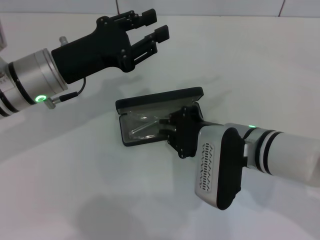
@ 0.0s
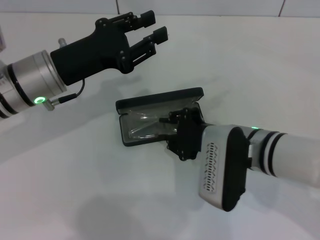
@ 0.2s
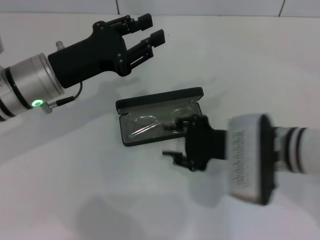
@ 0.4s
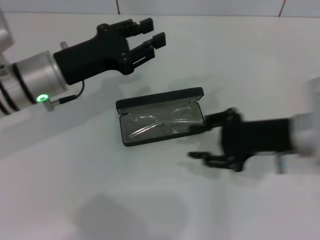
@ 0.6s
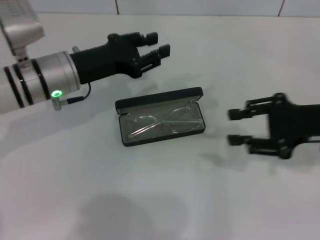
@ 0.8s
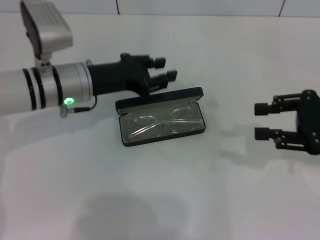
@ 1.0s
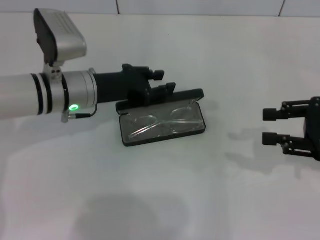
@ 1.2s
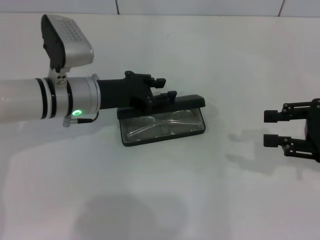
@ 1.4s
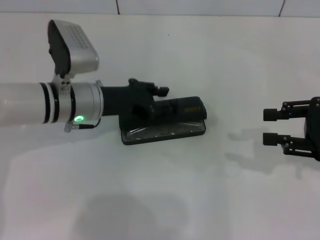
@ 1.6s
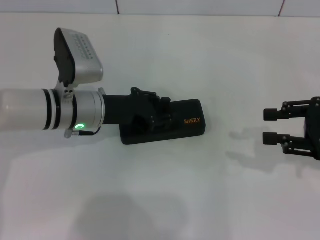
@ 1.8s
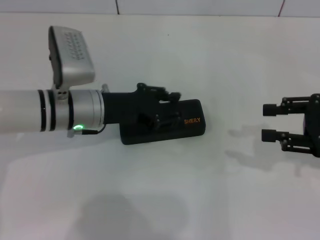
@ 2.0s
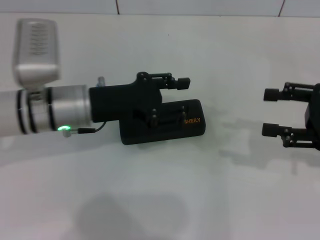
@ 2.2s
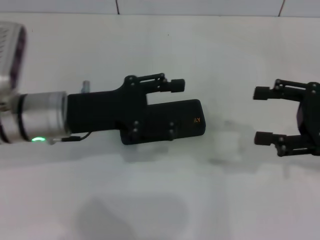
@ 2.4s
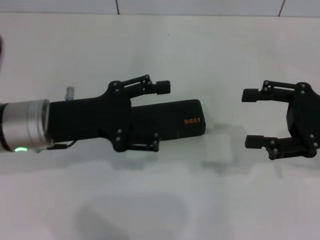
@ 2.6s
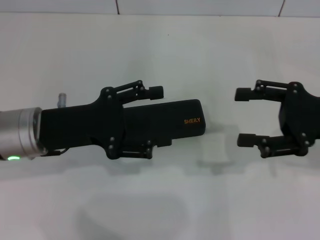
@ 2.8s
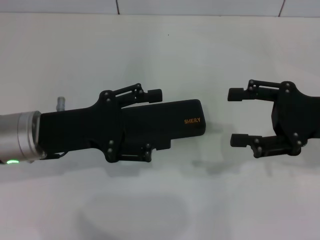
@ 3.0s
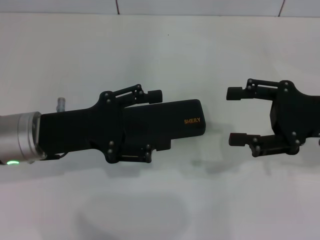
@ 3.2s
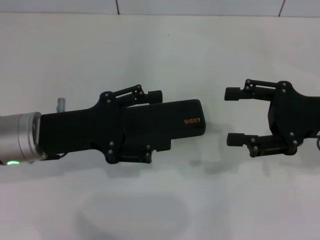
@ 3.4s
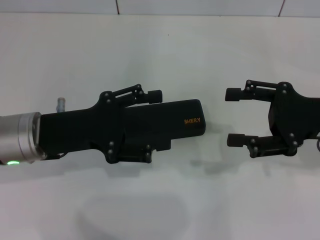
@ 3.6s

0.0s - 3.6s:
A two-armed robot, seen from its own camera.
Step, 0.4s - 1.6s: Close the glasses case with your left hand.
0.0s - 1.8s: The right gripper is displaced to the right by about 20 cm, and opens its fingers. The left gripper is displaced downward by approximately 5 cm.
1.8s - 3.6s: The right gripper heads to the left, covering roughly 5 cm, and opens up. Meanwhile the left gripper is displaced backward and to the left by about 10 cm, and opens up.
